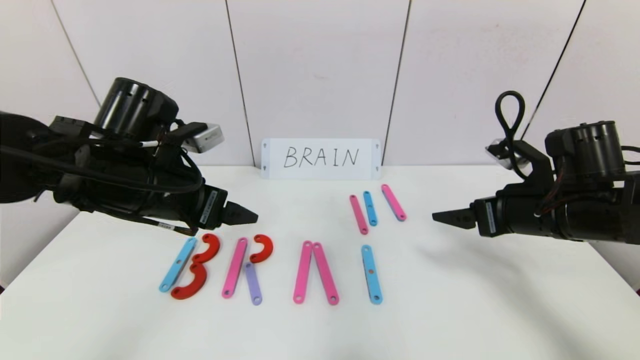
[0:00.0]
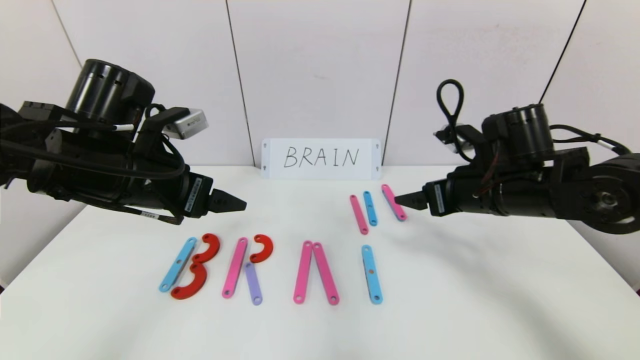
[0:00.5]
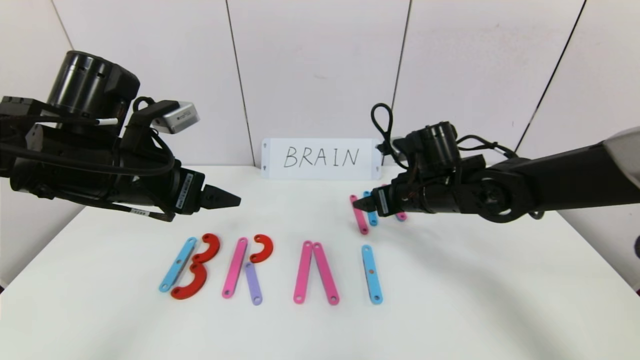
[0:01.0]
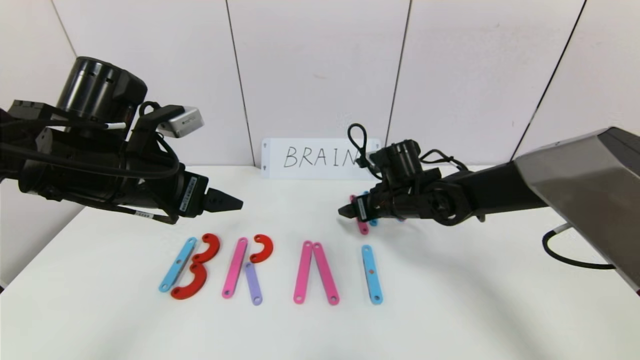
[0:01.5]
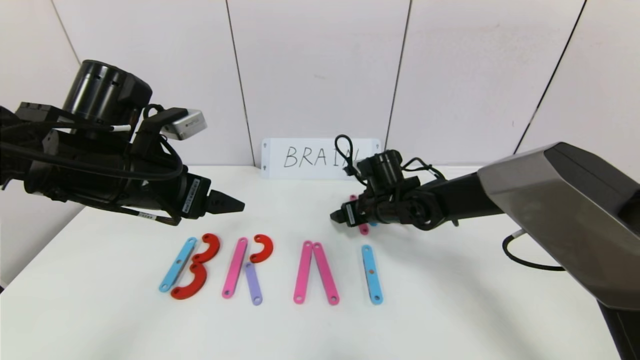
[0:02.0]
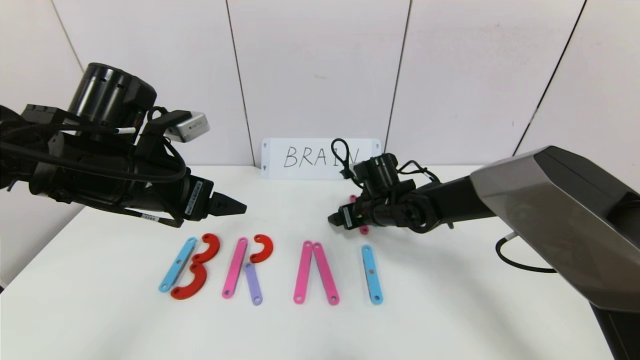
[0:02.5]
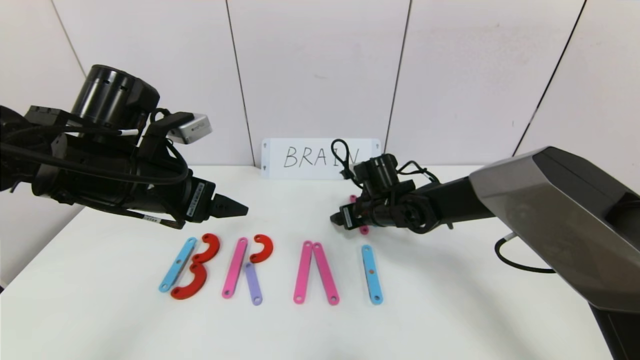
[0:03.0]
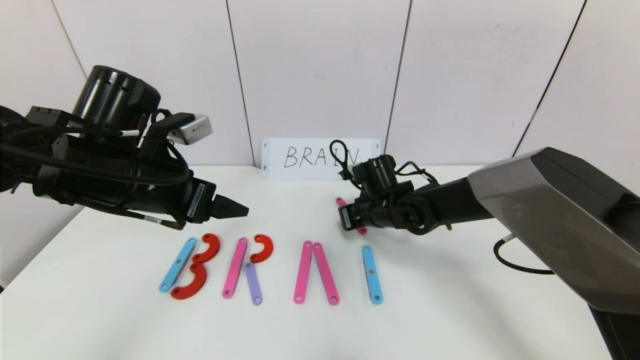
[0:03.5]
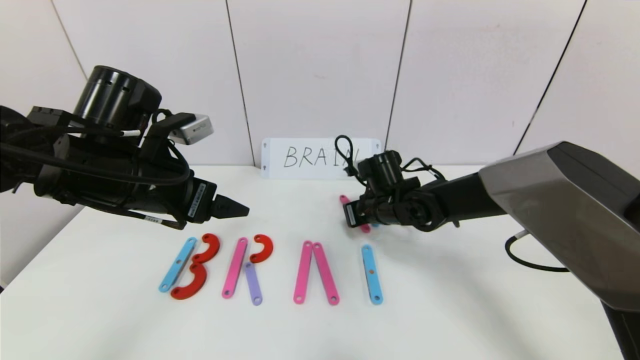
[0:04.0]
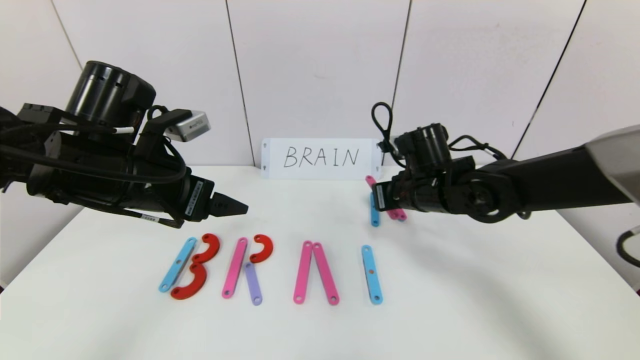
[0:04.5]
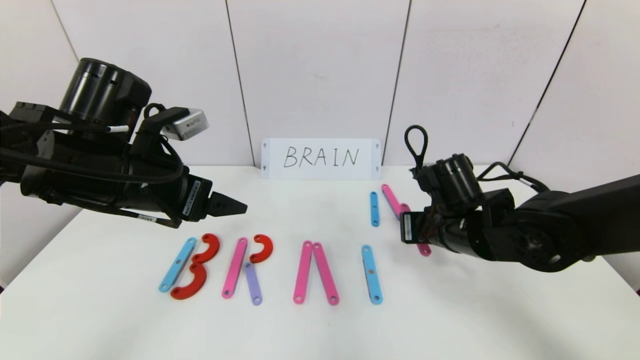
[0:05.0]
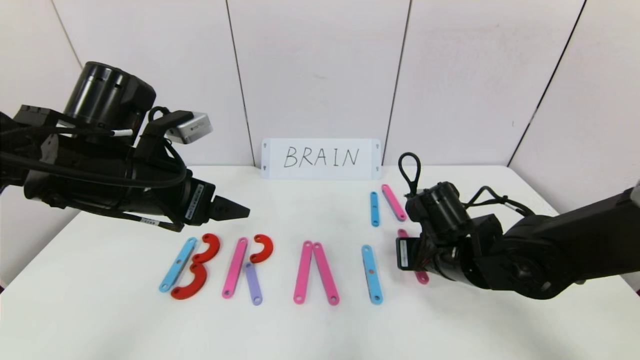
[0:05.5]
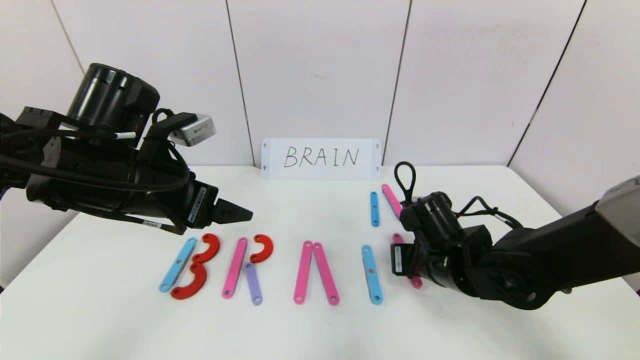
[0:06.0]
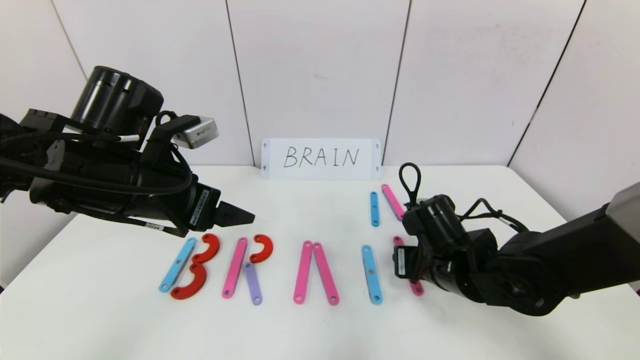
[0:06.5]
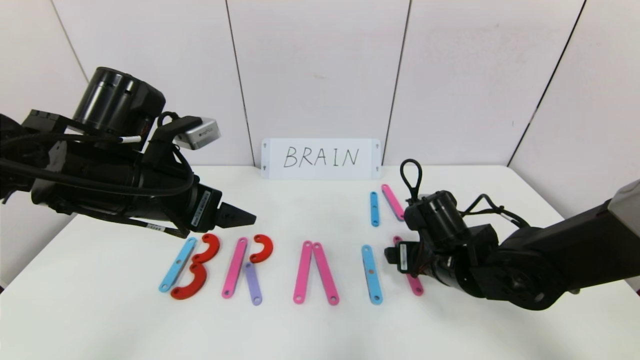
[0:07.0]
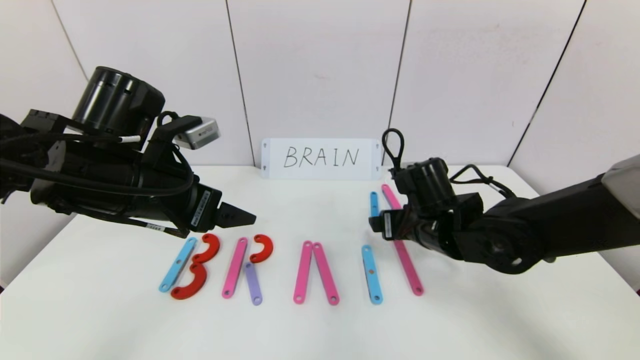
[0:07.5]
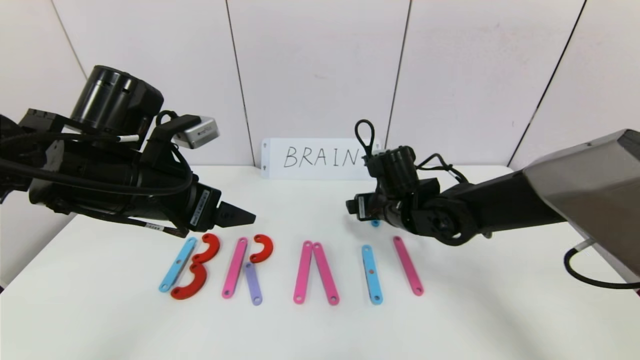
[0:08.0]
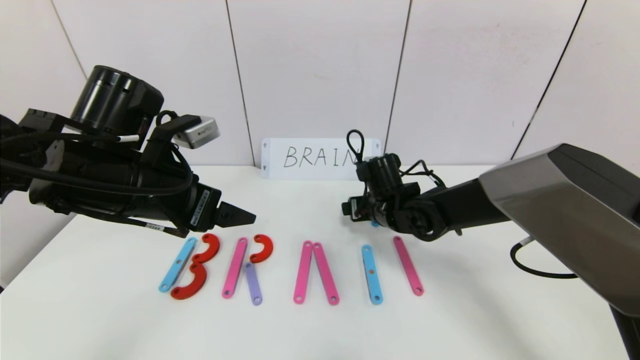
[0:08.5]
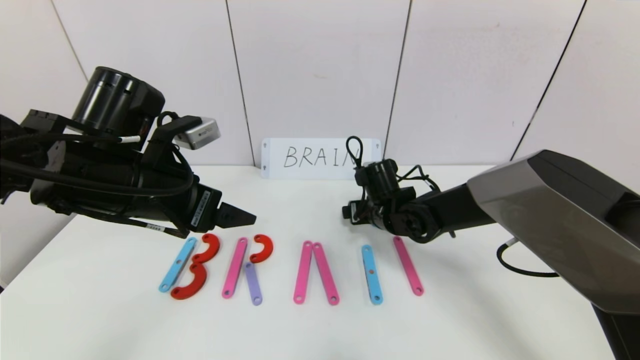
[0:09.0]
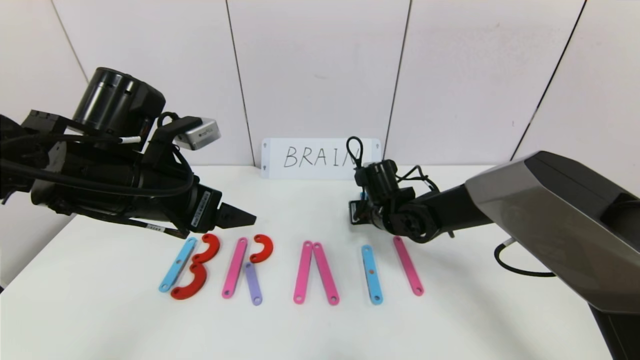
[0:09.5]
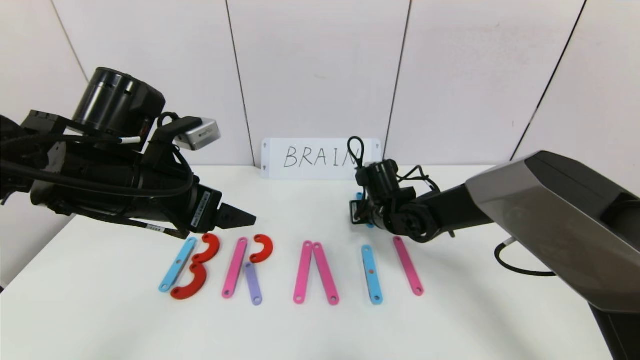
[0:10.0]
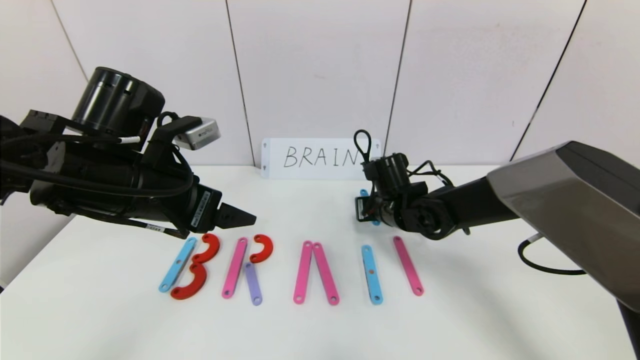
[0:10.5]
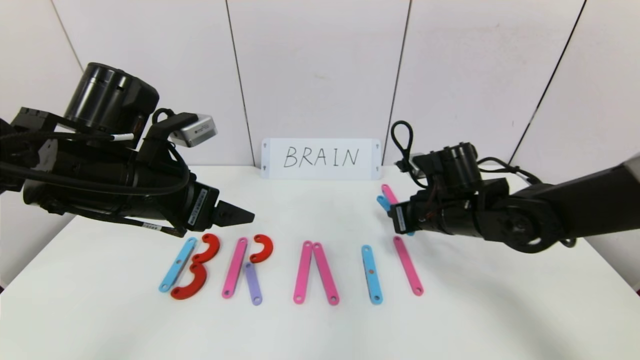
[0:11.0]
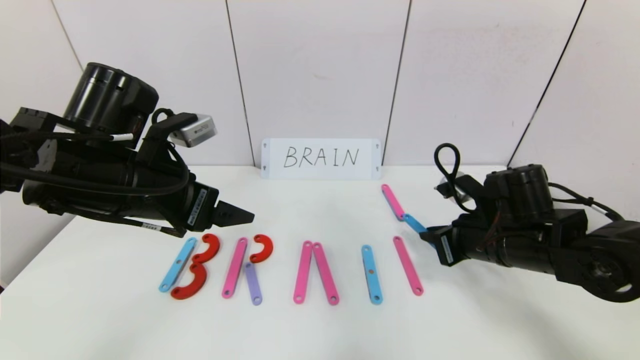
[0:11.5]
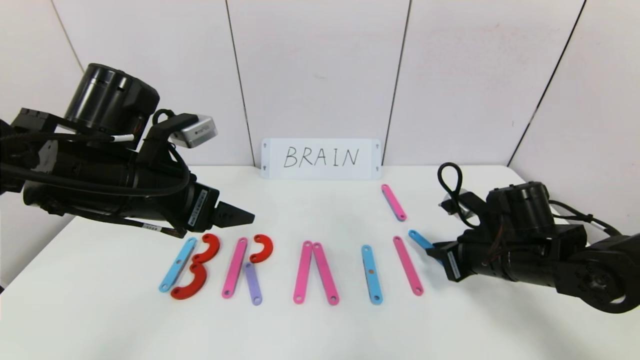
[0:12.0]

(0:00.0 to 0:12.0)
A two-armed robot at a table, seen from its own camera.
Task of the whole recording: rearrange the word baai as brain.
0:00.0 - 0:02.0: The right gripper shifts roughly 25 cm to the left, forward and downward.
0:02.0 - 0:04.0: The right gripper closes up.
0:04.0 - 0:06.0: The right gripper goes some 15 cm backward and to the right.
0:06.0 - 0:08.0: The right gripper heads forward, covering about 10 cm, and opens its fingers.
0:08.0 - 0:10.0: The right gripper changes place by about 5 cm, and closes up.
0:10.0 - 0:12.0: The right gripper moves to the right and backward, about 20 cm.

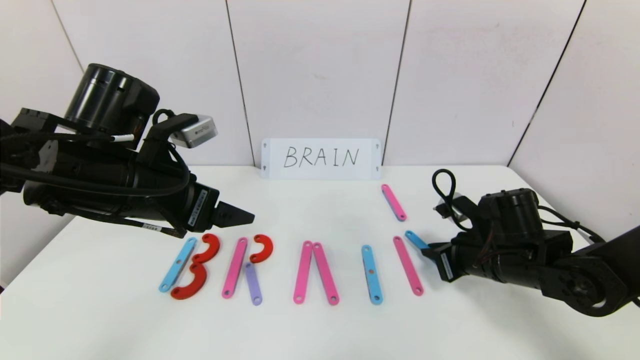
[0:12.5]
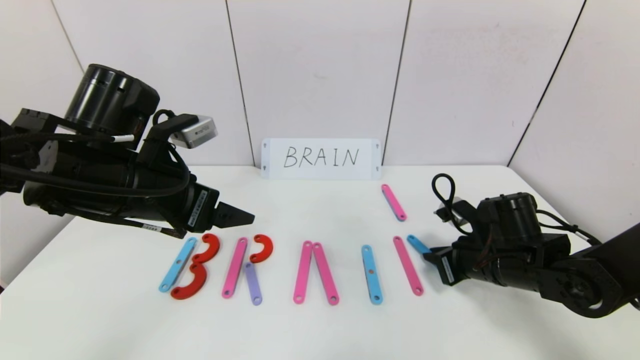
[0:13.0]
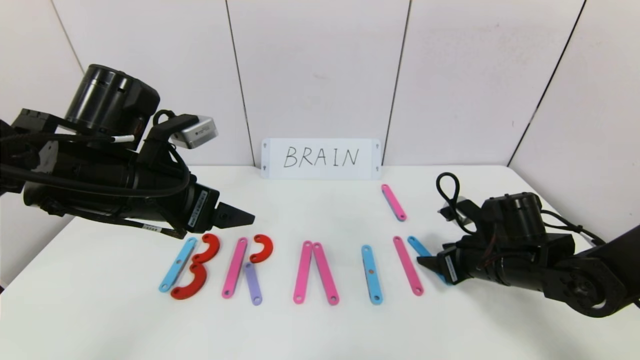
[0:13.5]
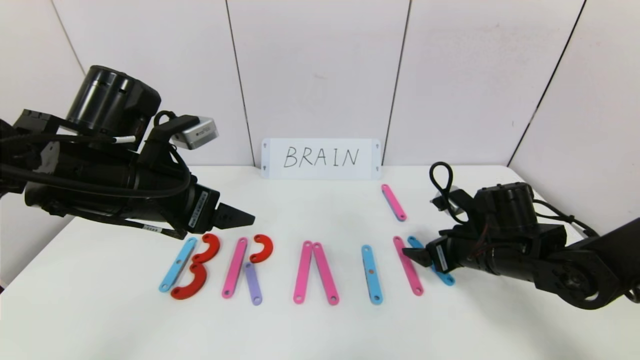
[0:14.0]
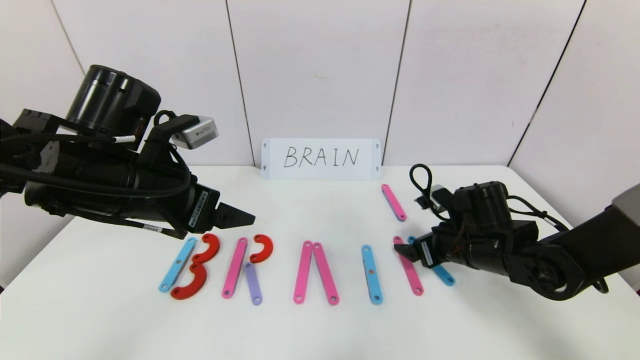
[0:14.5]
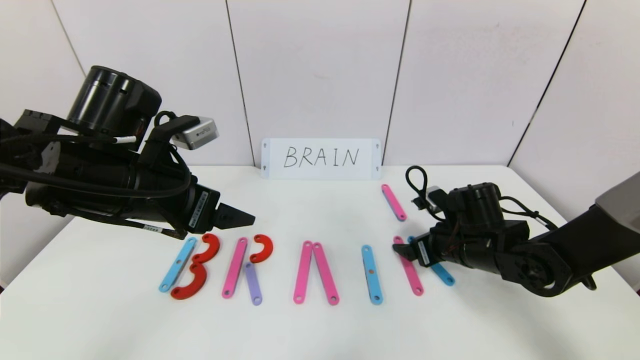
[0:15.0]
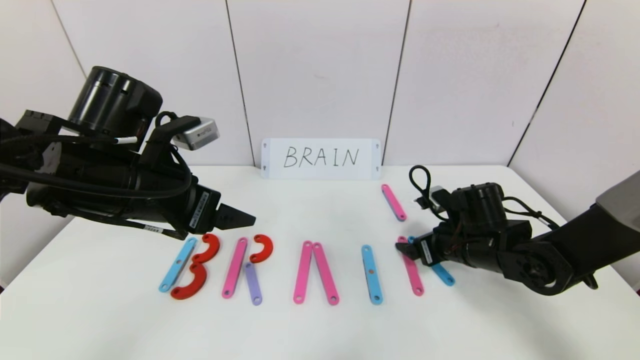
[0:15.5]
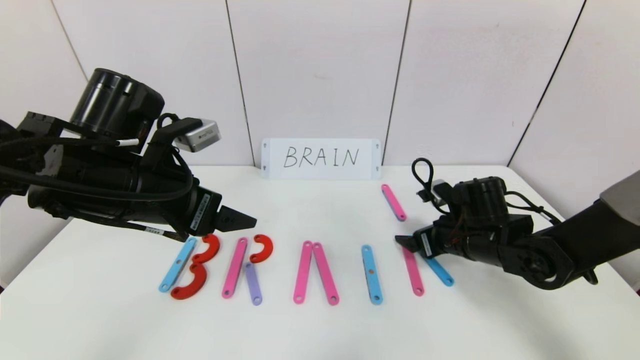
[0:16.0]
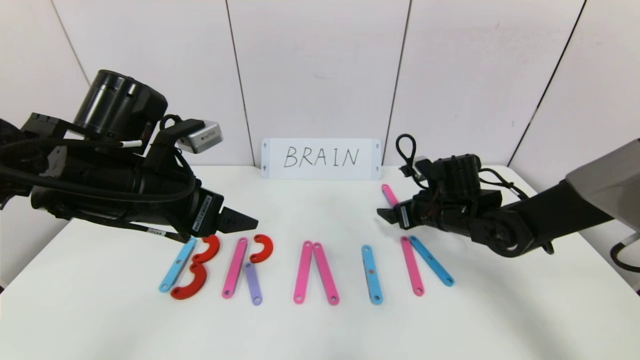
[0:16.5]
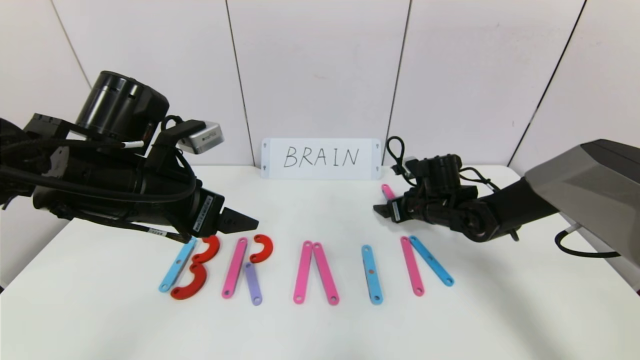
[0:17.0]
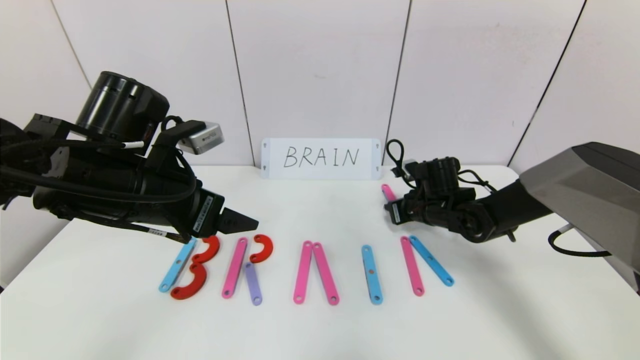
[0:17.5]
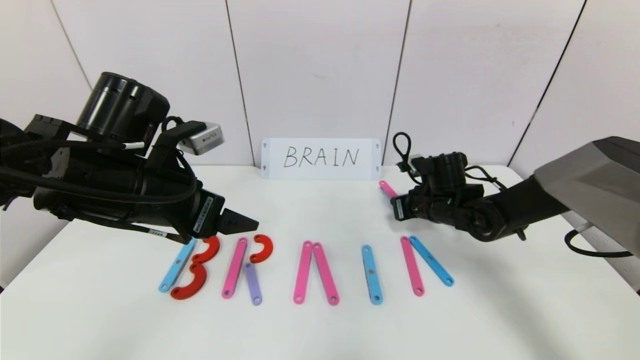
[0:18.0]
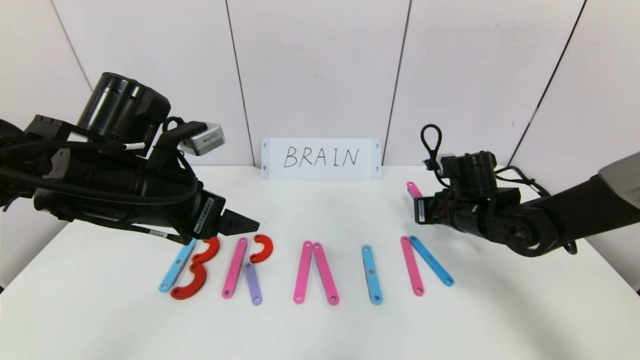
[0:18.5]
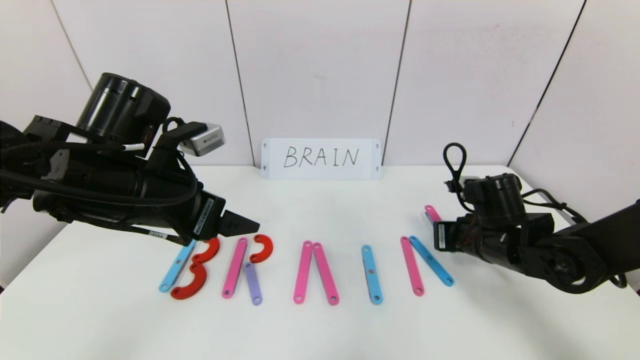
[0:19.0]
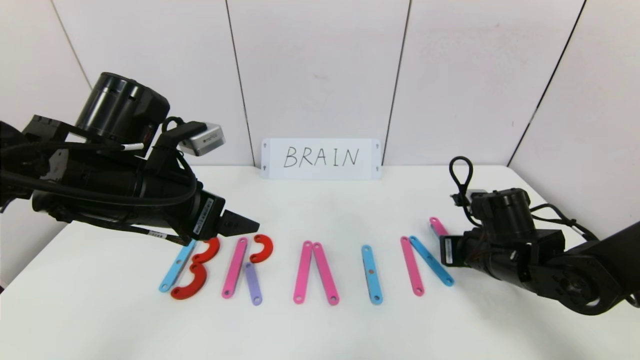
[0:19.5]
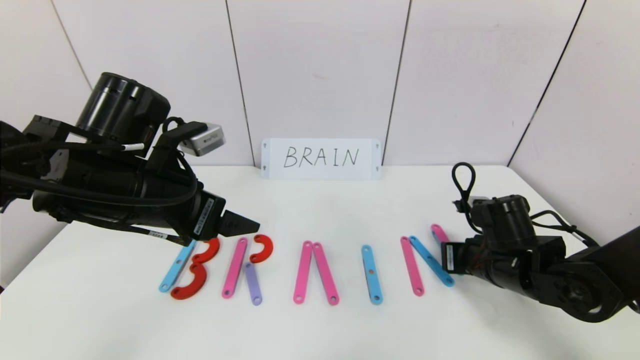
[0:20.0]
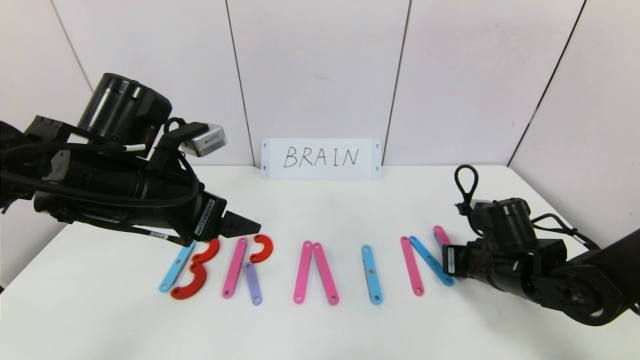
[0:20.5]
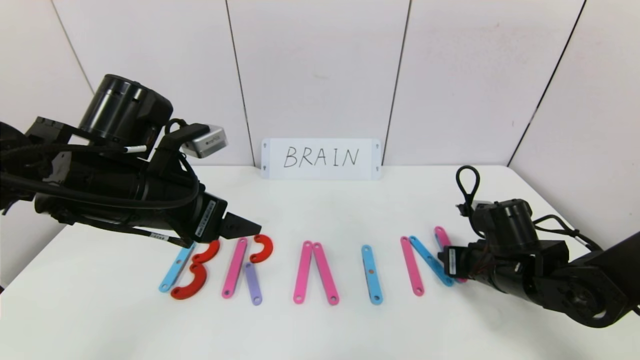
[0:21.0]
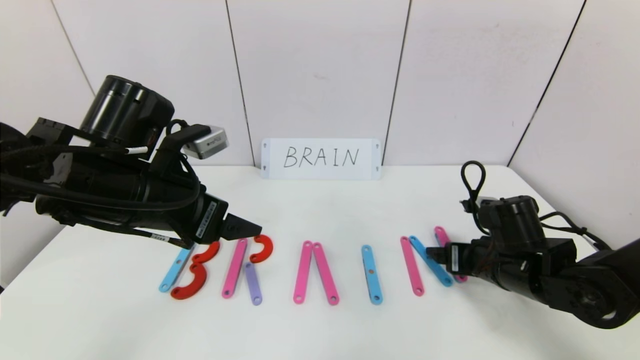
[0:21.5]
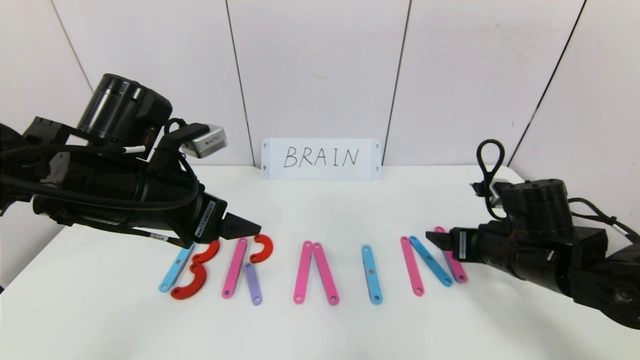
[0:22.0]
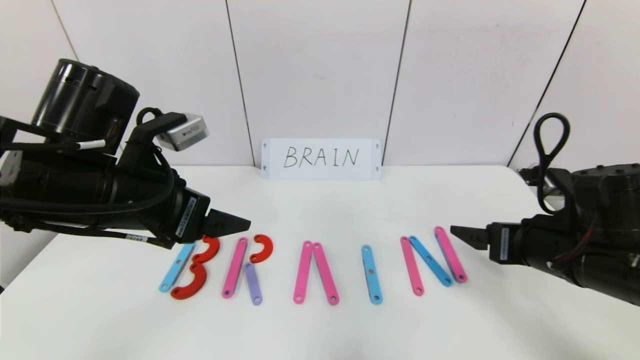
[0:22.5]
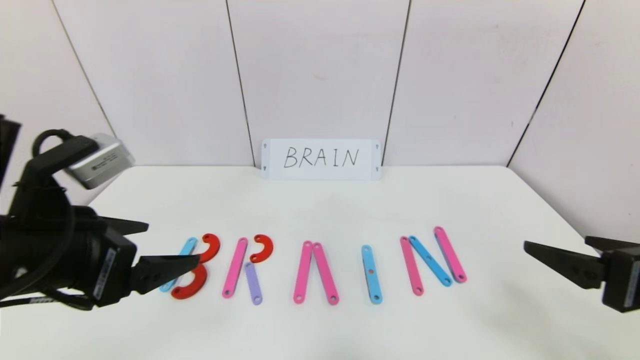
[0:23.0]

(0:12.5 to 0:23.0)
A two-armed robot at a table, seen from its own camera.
Task of the whole recording: rearrange the word baai as brain.
Step, 0:12.5 - 0:21.5: Place the character N after character I.
0:12.5 - 0:14.5: The right gripper opens up.
0:14.5 - 0:16.5: The right gripper travels forward by about 5 cm.
0:16.5 - 0:19.0: The right gripper is displaced backward by some 5 cm, and closes its fingers.
0:19.0 - 0:21.0: The right gripper opens its fingers.
0:21.0 - 0:23.0: The right gripper travels backward and upward by approximately 20 cm, and opens its fingers, while the left gripper moves backward, about 10 cm.
